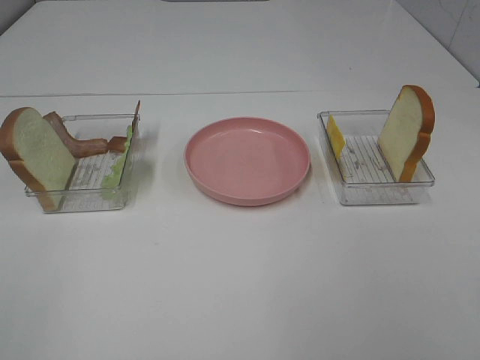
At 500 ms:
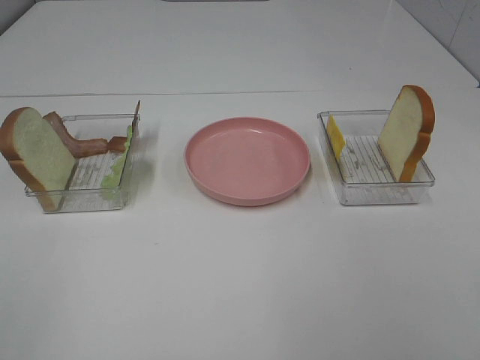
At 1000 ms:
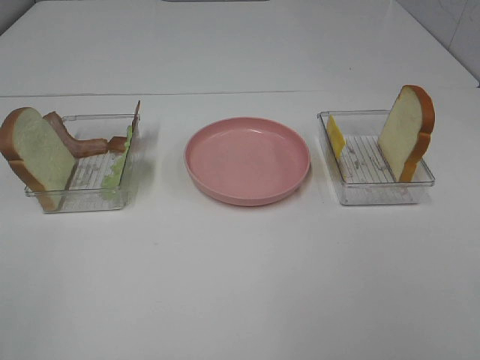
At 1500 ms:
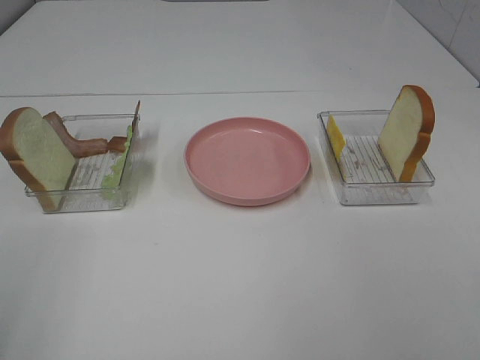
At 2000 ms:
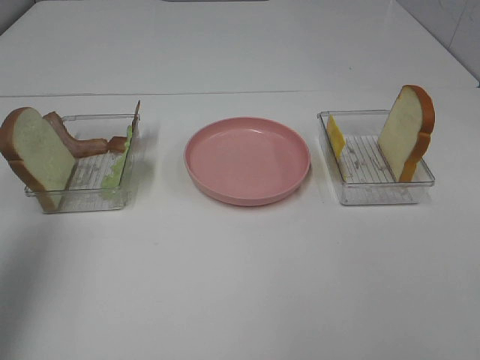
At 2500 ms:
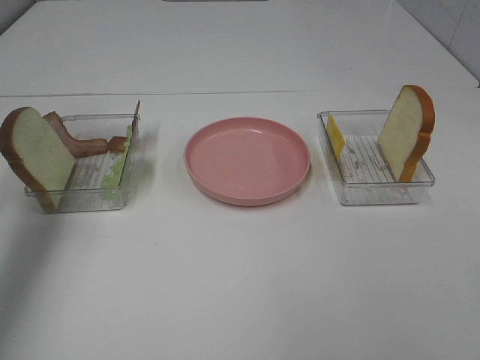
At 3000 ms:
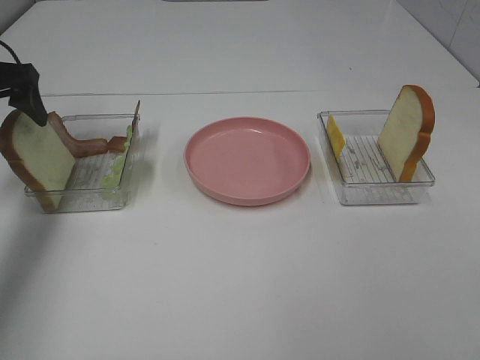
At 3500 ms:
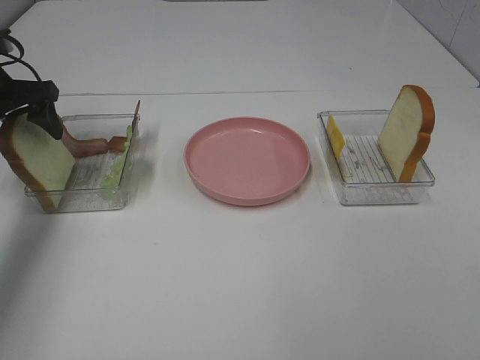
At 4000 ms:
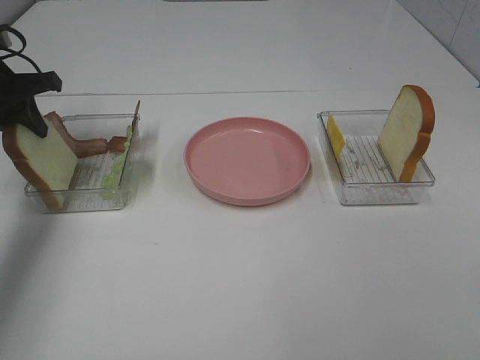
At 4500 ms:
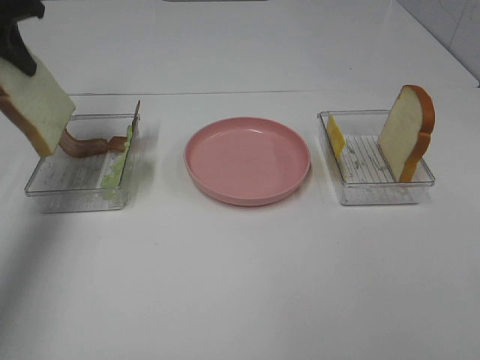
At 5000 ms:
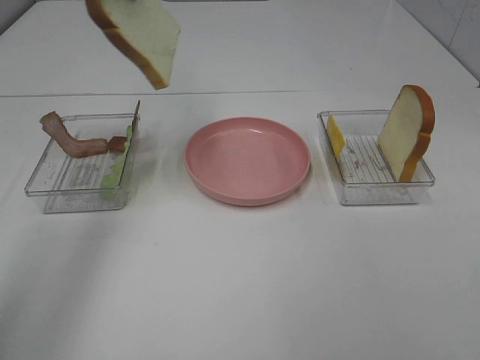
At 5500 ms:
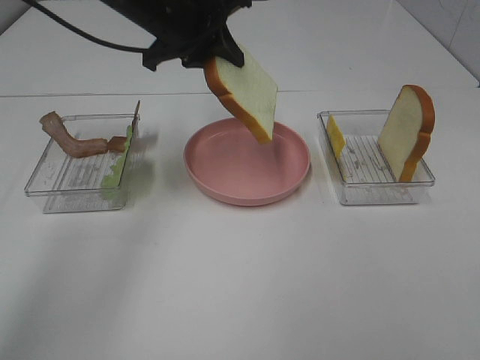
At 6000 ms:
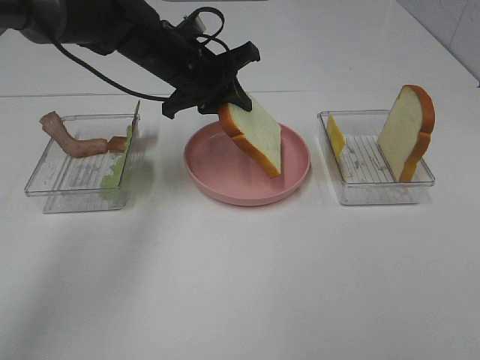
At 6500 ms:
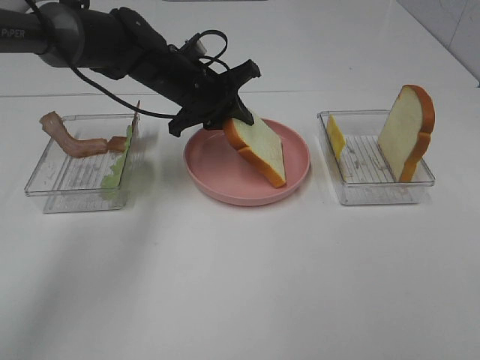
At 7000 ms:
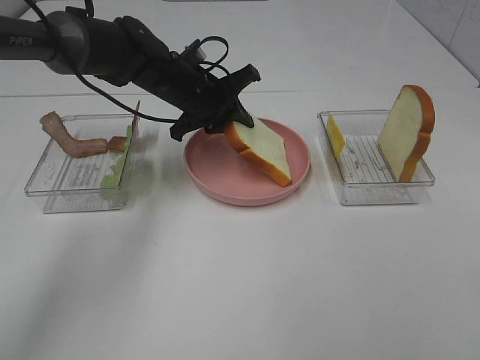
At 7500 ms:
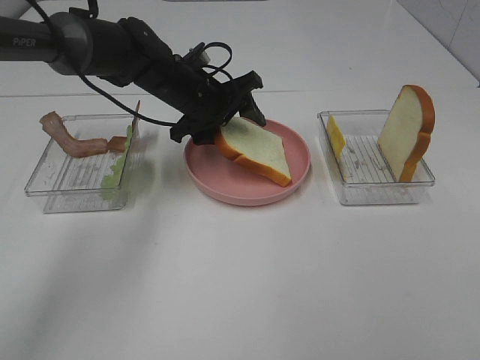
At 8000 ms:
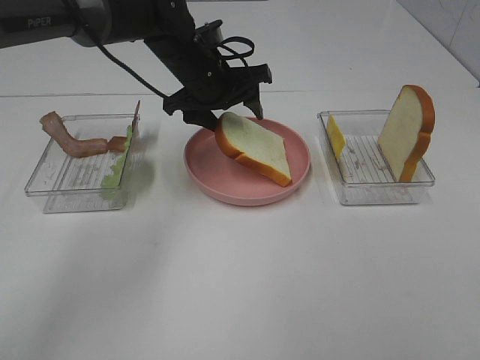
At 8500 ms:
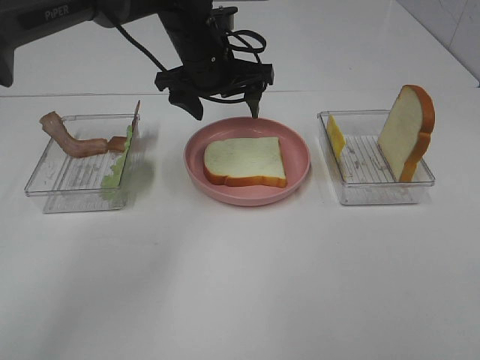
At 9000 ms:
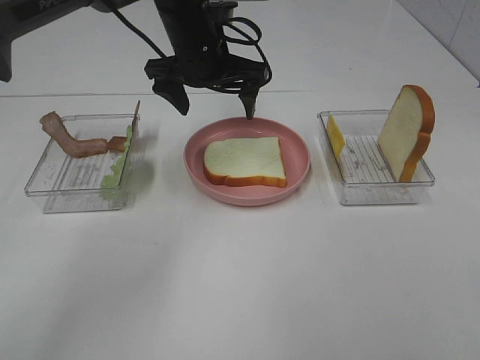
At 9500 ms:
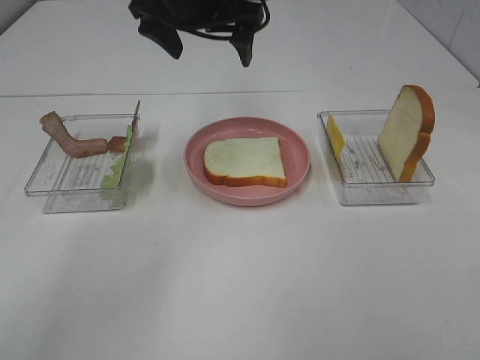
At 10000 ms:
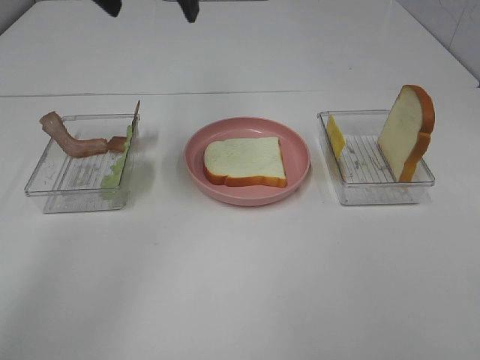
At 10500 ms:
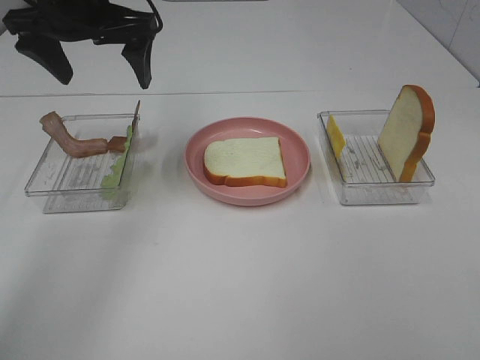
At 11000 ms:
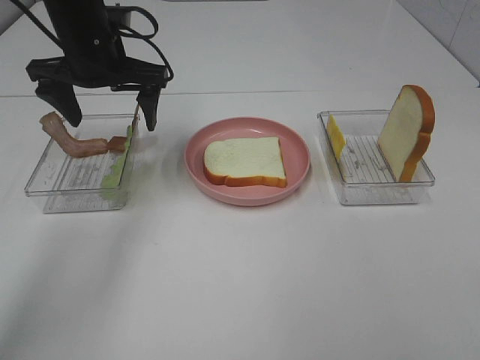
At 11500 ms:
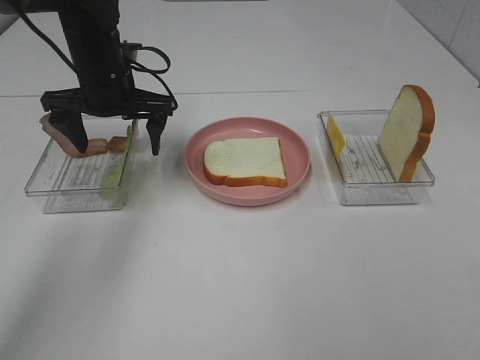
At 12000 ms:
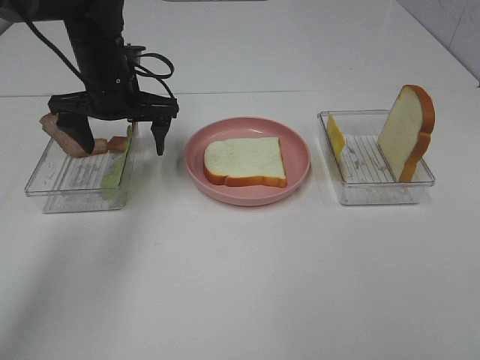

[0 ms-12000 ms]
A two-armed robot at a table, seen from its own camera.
Task of the whole recording: Make sandwiches.
Step, 0 ms to 3500 ms: Left hand:grab the bread slice.
Step, 4000 ms to 8500 ms: Left hand:place the bread slice on the plate.
0 ms to 2000 ms: The left gripper is displaced forward by about 20 cm.
2000 ms to 4000 ms: The left gripper travels forward and downward by some 25 cm, and closes its fingers.
4000 ms to 6000 ms: The left gripper is displaced to the right by some 25 cm.
6000 ms to 8000 ms: The left gripper opens its fingers.
8000 ms to 10000 ms: The left gripper goes roughly 20 cm upward and to the left.
10000 ms to 12000 ms: The left gripper goes about 15 cm downward.

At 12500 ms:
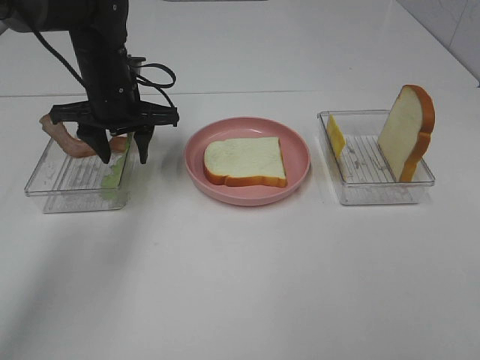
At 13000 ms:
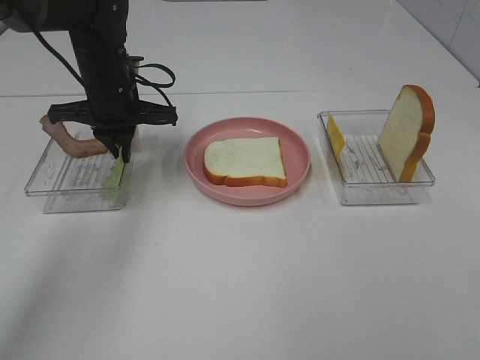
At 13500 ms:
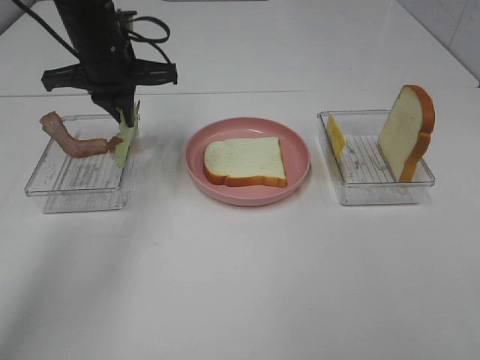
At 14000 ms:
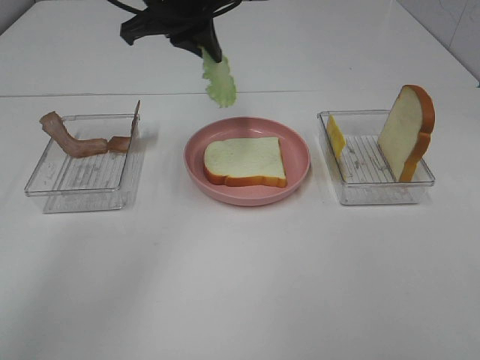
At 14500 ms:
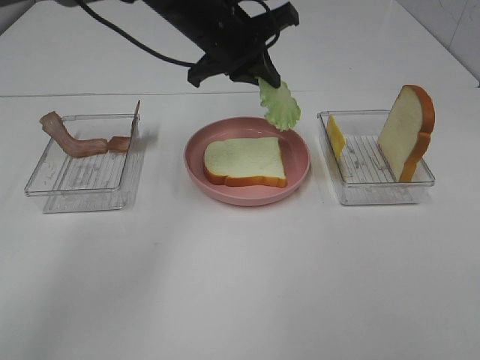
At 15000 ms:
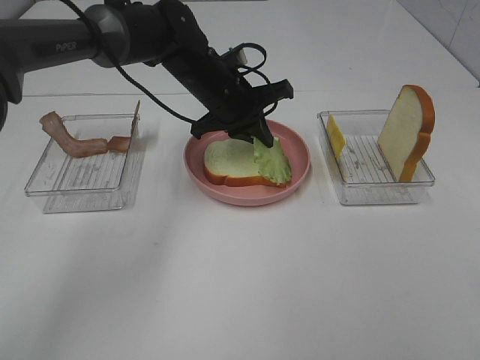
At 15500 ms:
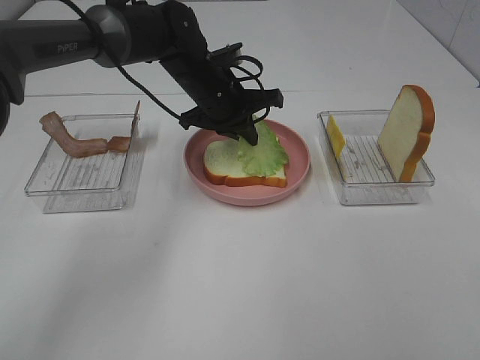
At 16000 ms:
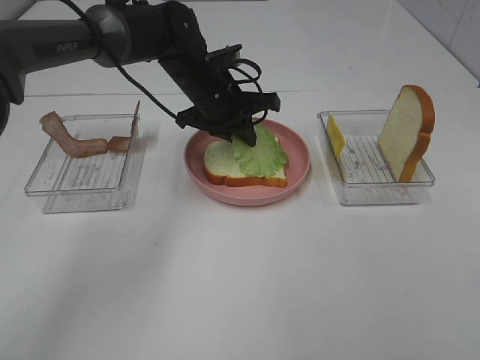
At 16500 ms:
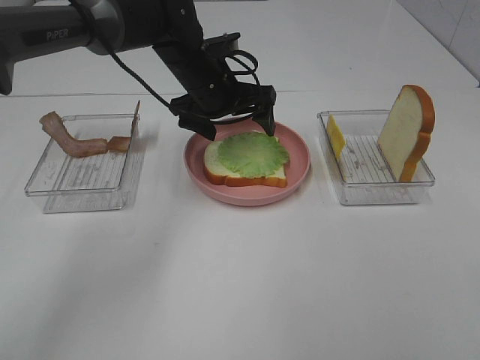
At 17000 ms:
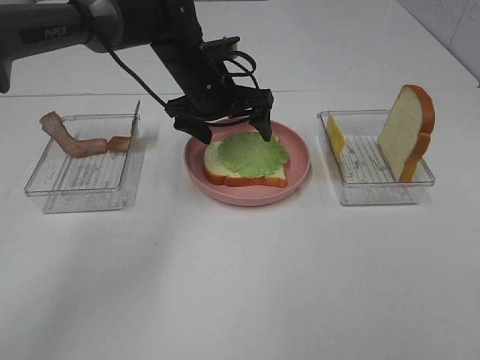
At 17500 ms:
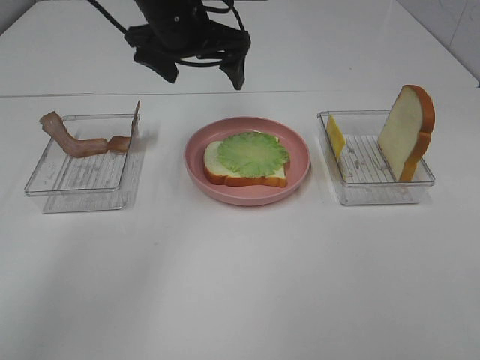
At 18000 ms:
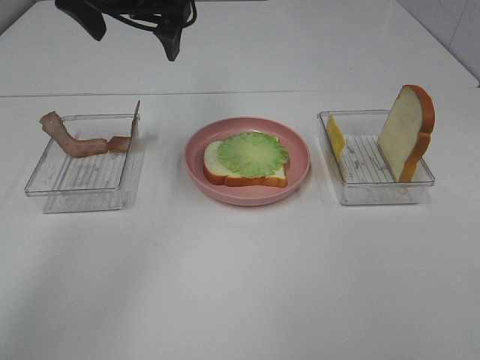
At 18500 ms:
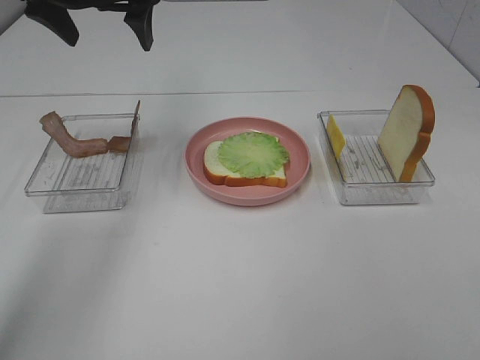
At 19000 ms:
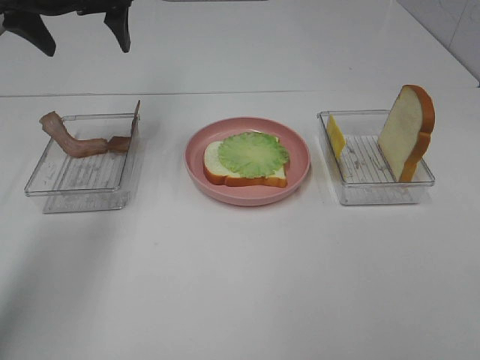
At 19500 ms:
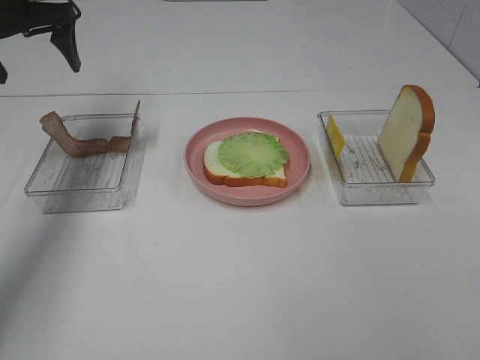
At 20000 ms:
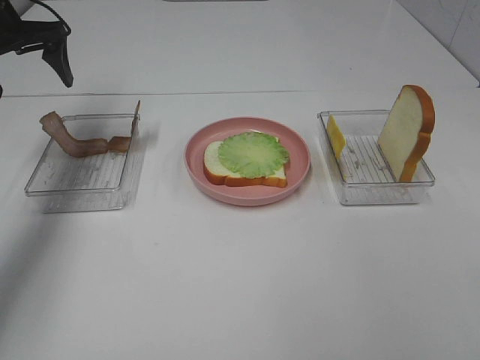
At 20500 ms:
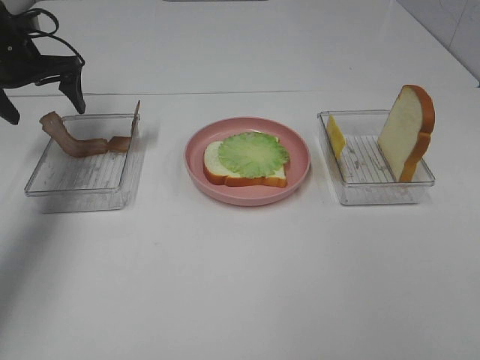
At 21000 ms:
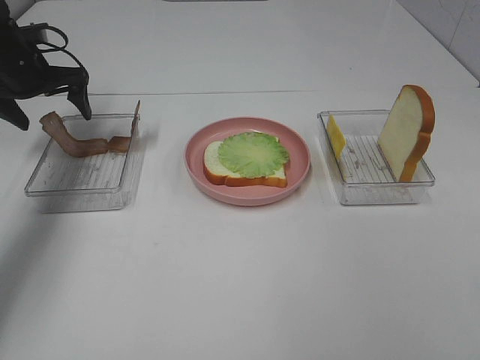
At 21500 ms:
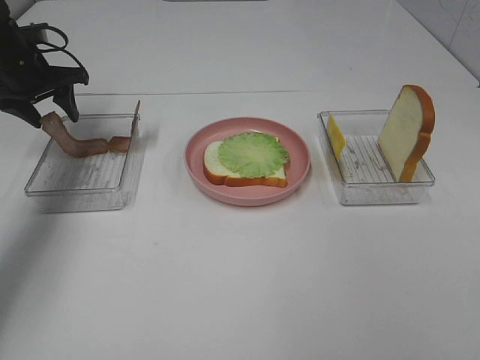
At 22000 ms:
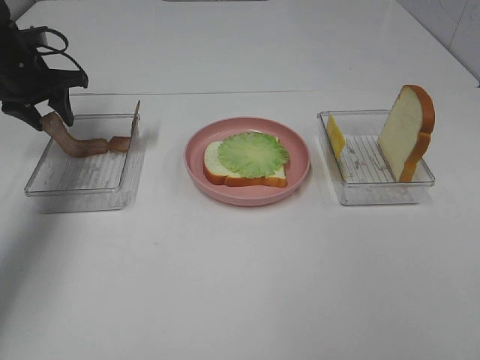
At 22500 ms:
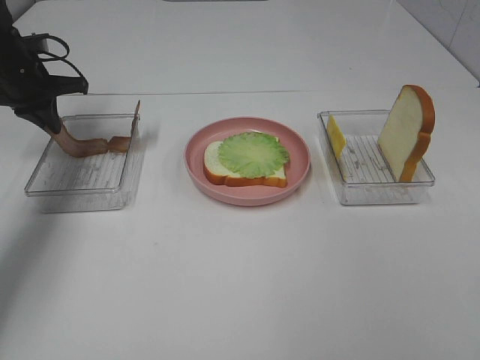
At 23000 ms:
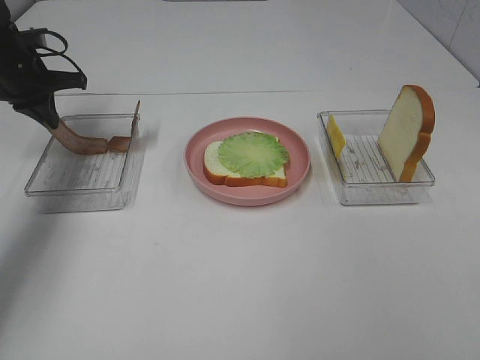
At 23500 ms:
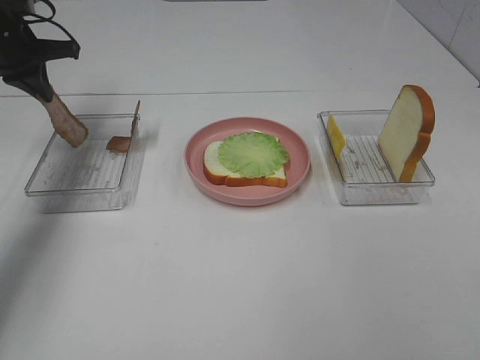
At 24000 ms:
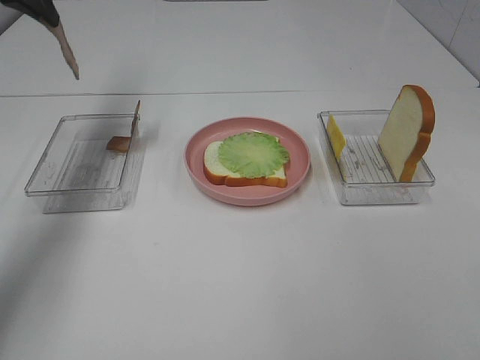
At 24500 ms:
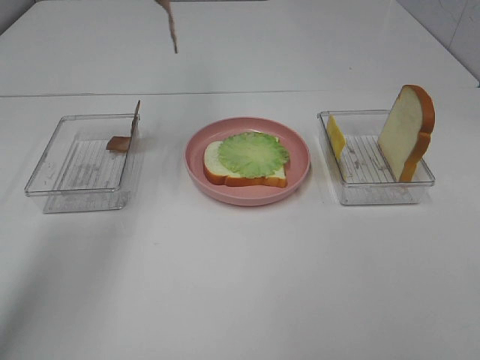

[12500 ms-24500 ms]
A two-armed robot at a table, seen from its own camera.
Task of the whole recording: Make sandwiches.
Step, 13500 ms to 16000 ms: Left hand:place the lettuce slice on the bread slice.
Step, 16500 ms to 23000 ms: Left hand:grab the bacon.
12500 ms to 14500 ms: The left gripper moves to the right and upward, approximately 15 cm, and closes up.
14500 ms to 16500 ms: The left gripper travels downward by roughly 10 cm, and opens.
16500 ms to 18500 ms: The left gripper shifts approximately 20 cm upward and to the left.
18500 ms to 20500 ms: The left gripper heads to the left and downward, covering approximately 20 cm.
20500 ms to 22500 ms: The left gripper closes its fingers.
22500 ms to 24500 ms: The left gripper travels upward and to the right by some 25 cm.

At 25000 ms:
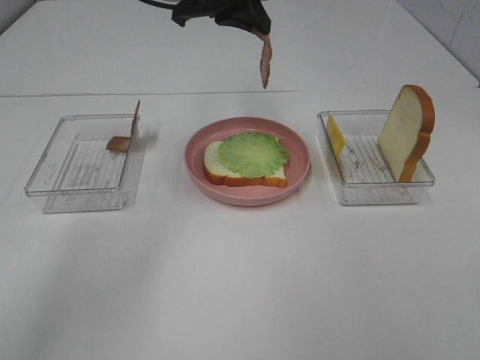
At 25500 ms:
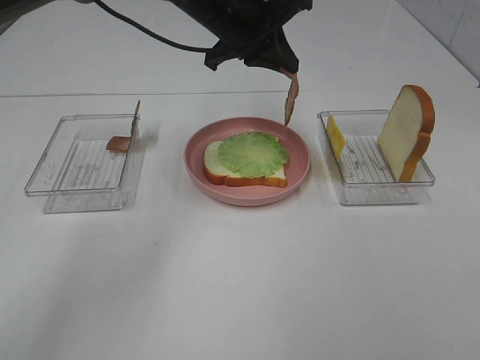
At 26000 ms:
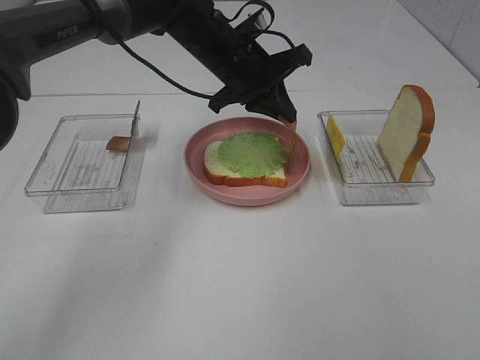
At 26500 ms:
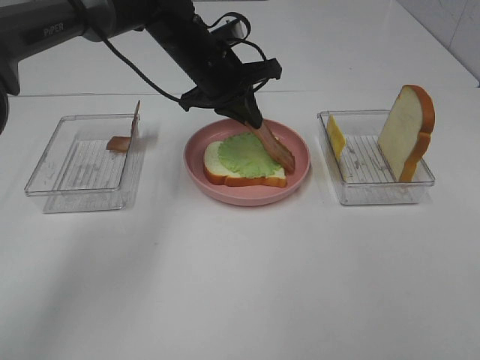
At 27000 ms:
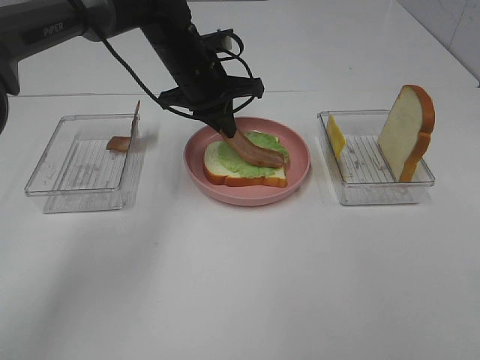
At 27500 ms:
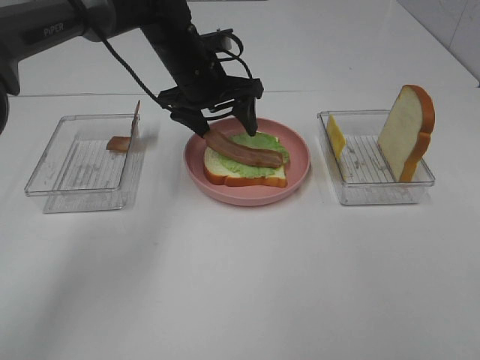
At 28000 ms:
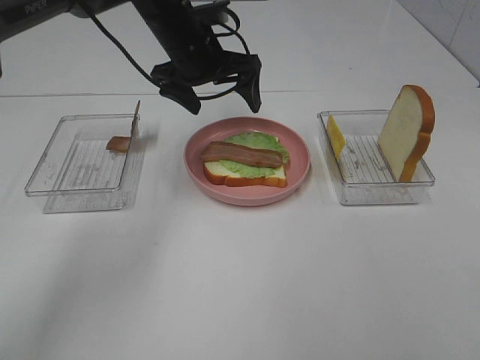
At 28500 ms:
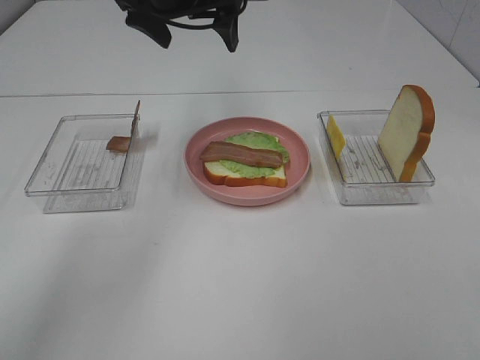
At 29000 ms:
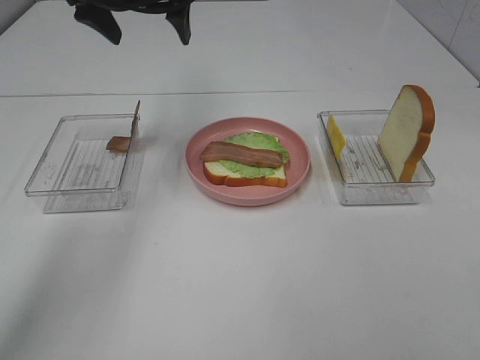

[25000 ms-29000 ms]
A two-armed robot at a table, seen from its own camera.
Task of the whole recording: Make sandwiches.
Step, 25000 ms to 27500 ms: Left hand:place bacon on lettuce slice.
25000 ms to 27000 ms: The left gripper travels downward by roughly 10 cm.
27000 ms to 29000 ms: The left gripper shifts roughly 15 cm upward and to the left, and opens.
